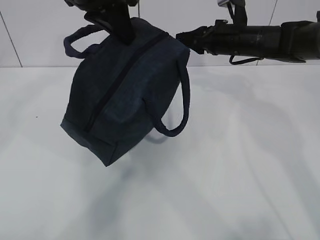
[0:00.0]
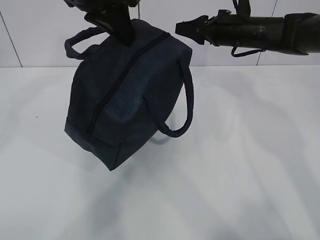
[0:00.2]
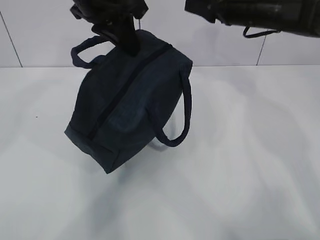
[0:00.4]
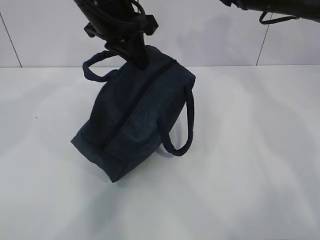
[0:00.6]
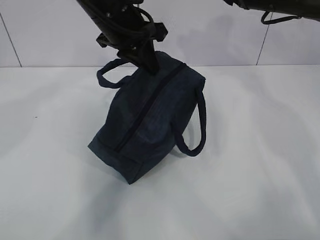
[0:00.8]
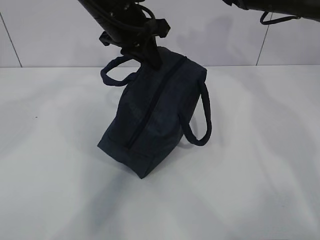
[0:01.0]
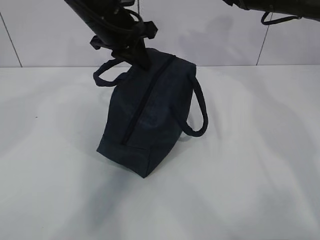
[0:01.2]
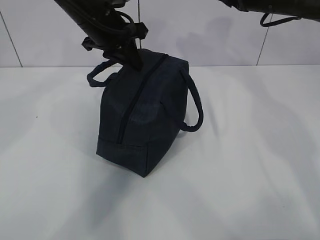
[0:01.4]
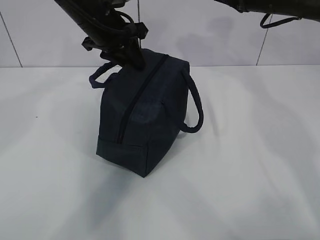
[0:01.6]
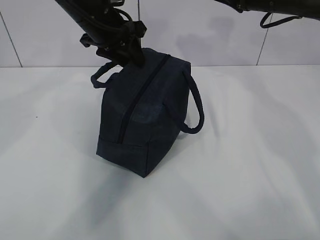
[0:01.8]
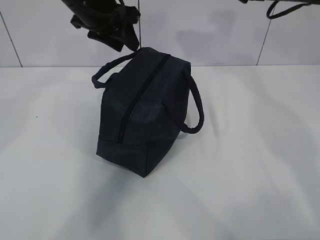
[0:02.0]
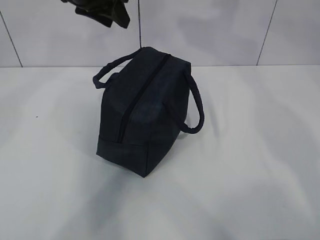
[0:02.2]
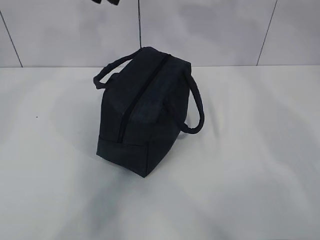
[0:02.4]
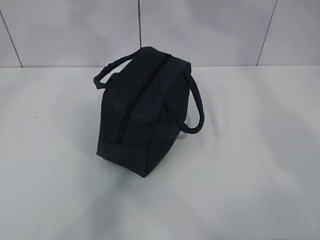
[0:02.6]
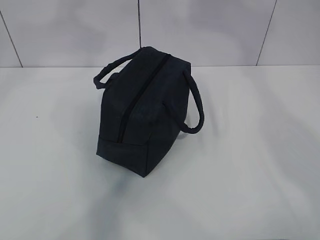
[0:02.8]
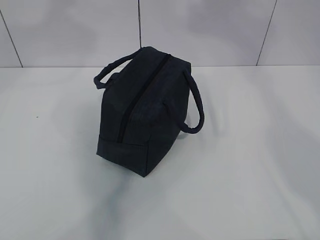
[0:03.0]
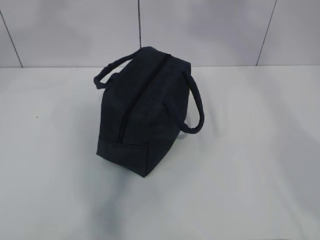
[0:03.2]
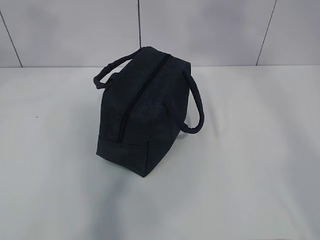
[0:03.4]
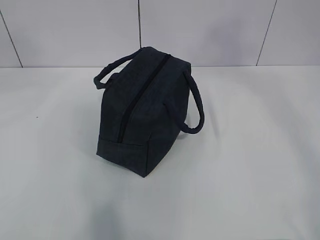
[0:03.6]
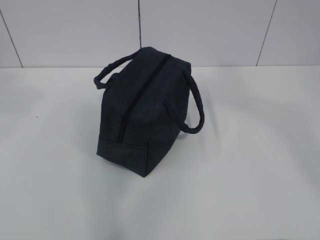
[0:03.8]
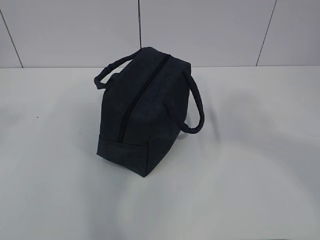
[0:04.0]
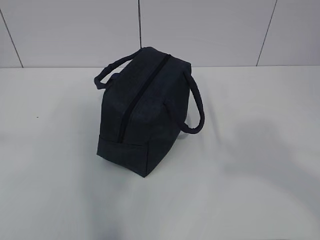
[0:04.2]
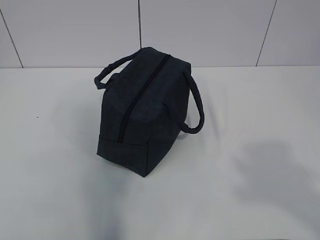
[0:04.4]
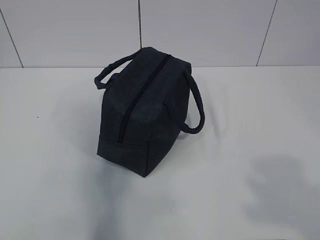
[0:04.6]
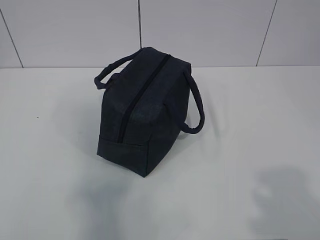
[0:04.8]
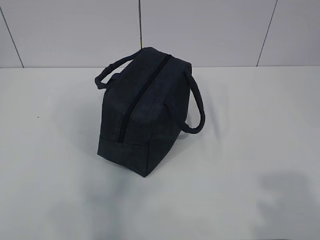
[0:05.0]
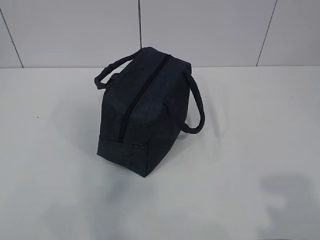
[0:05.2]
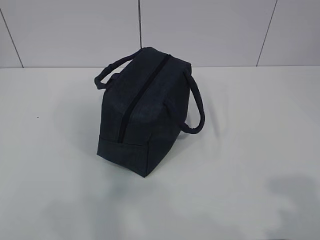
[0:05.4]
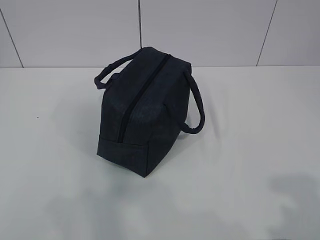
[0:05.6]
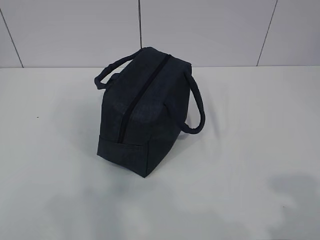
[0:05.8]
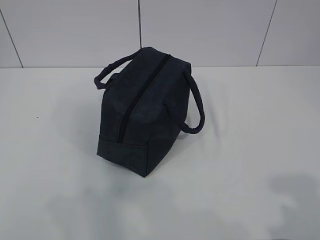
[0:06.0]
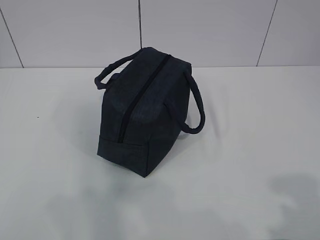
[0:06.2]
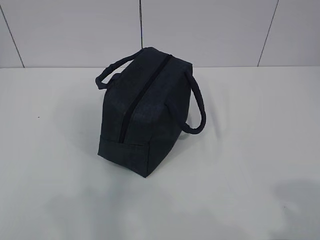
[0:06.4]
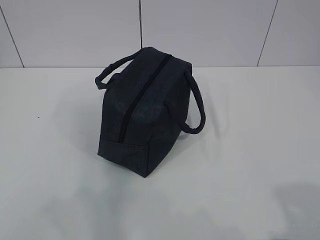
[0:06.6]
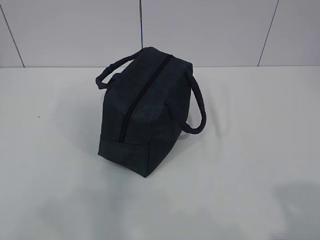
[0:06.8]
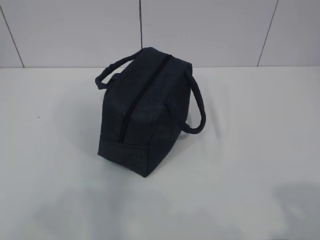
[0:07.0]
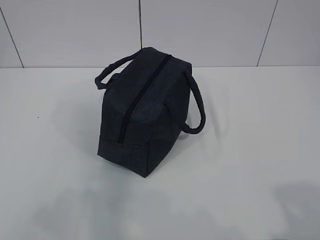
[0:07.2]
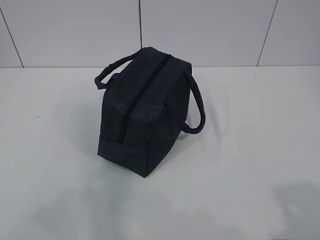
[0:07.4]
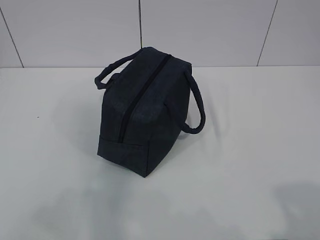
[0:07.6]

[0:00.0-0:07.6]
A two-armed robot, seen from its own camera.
0:00.0 to 0:01.6: The left gripper travels downward and forward by roughly 10 cm, and opens, while the right gripper is displaced upward by some 10 cm.
0:01.6 to 0:03.0: Both grippers move upward and backward, roughly 30 cm.
0:03.0 to 0:04.6: The left gripper shifts roughly 40 cm backward, to the left and downward; the right gripper travels backward and downward by about 35 cm.
0:04.6 to 0:06.0: The left gripper is displaced downward by about 10 cm.
